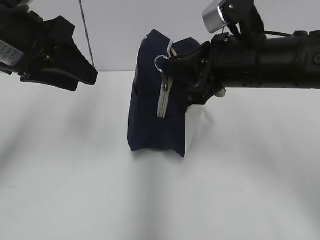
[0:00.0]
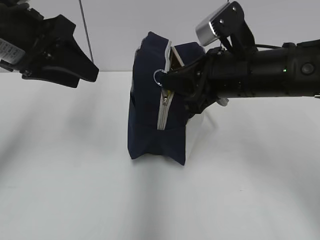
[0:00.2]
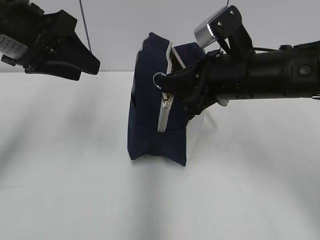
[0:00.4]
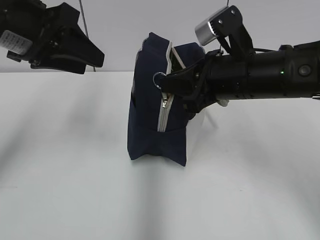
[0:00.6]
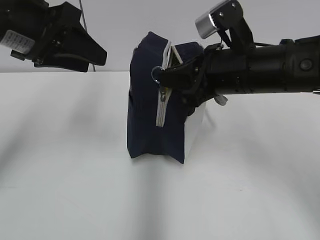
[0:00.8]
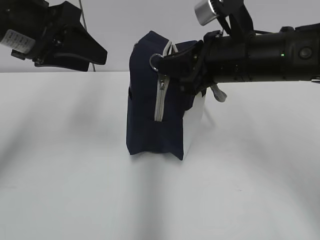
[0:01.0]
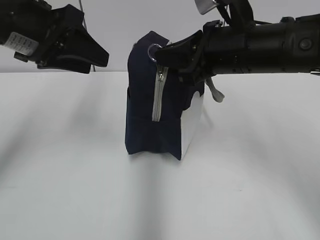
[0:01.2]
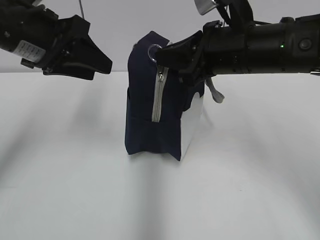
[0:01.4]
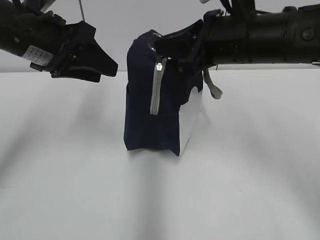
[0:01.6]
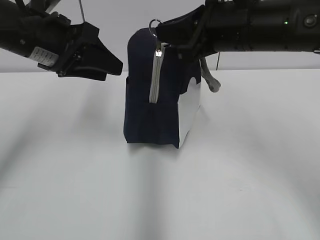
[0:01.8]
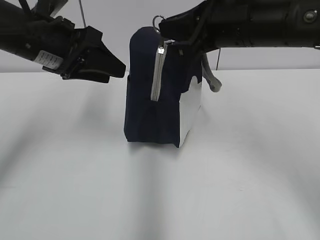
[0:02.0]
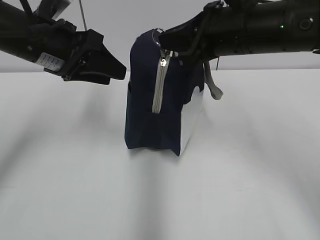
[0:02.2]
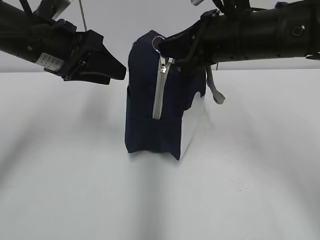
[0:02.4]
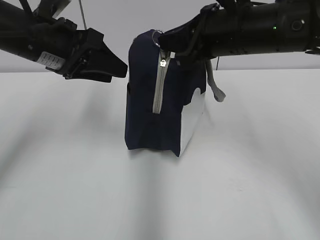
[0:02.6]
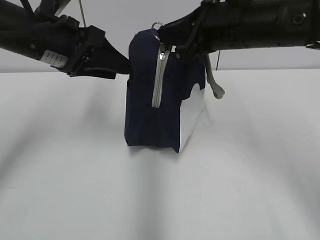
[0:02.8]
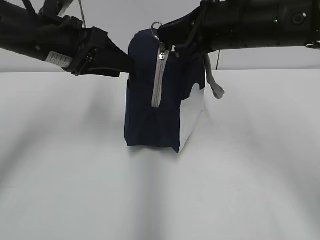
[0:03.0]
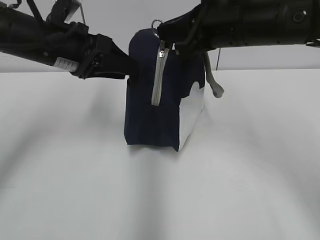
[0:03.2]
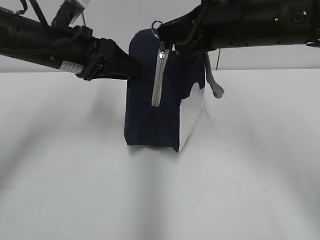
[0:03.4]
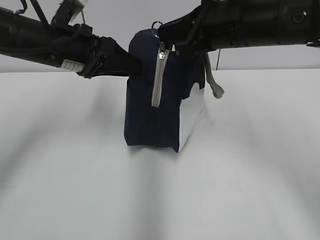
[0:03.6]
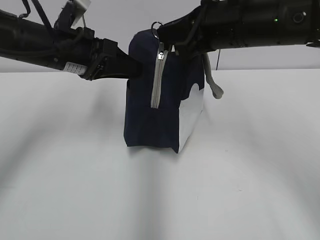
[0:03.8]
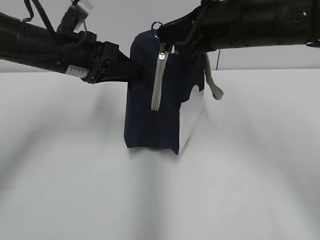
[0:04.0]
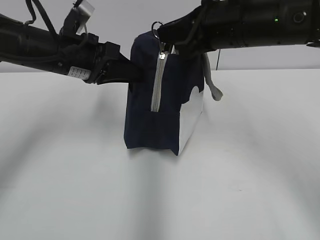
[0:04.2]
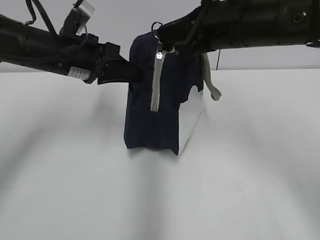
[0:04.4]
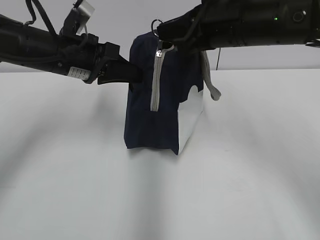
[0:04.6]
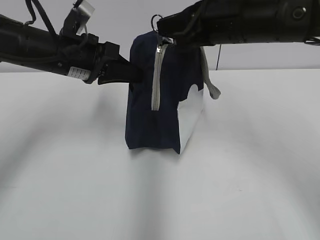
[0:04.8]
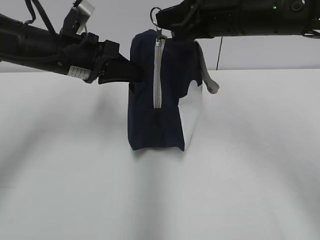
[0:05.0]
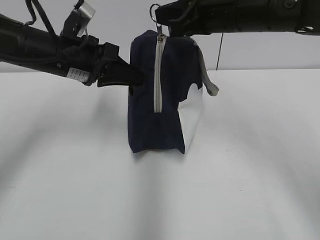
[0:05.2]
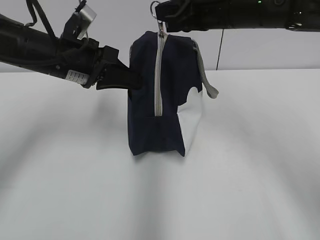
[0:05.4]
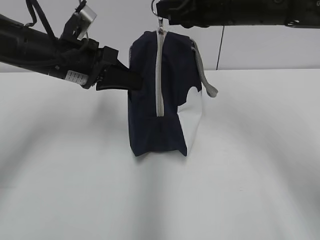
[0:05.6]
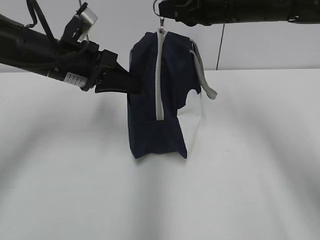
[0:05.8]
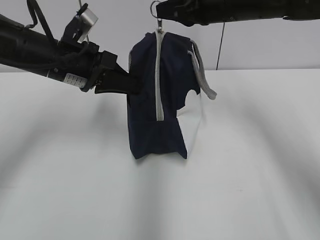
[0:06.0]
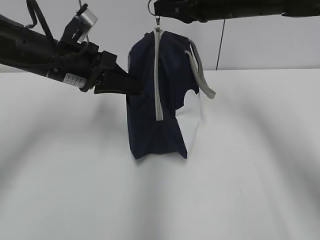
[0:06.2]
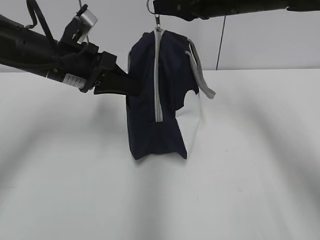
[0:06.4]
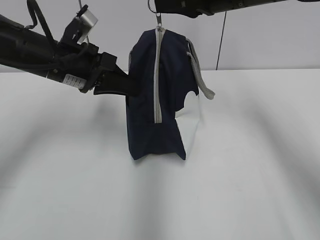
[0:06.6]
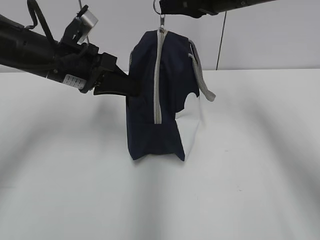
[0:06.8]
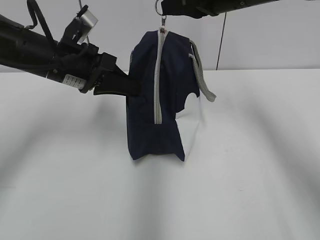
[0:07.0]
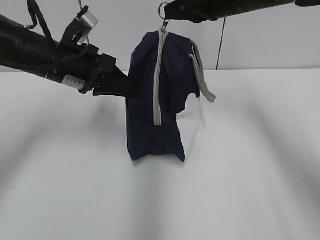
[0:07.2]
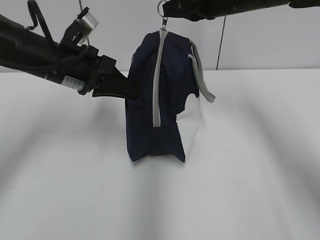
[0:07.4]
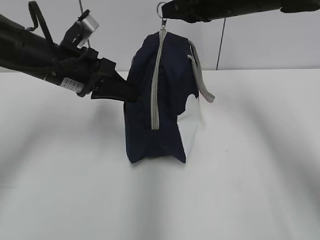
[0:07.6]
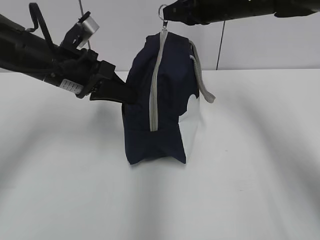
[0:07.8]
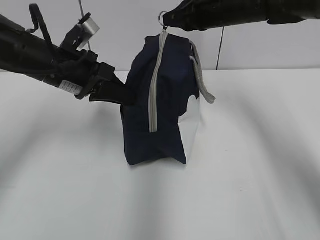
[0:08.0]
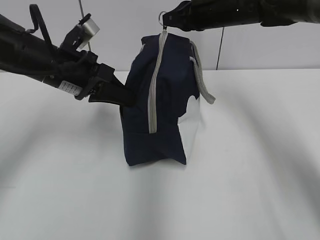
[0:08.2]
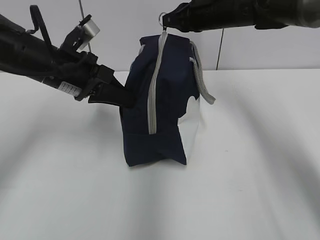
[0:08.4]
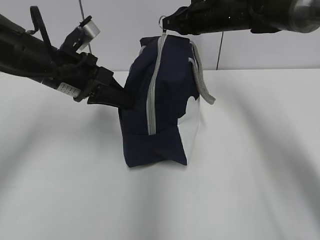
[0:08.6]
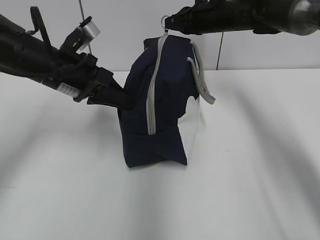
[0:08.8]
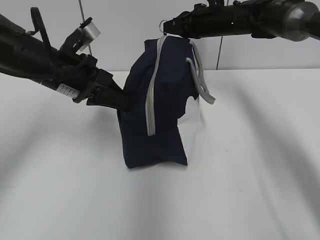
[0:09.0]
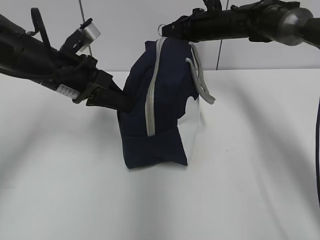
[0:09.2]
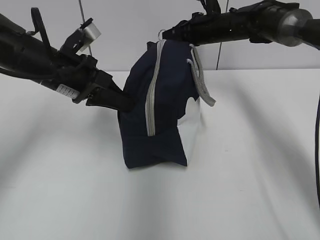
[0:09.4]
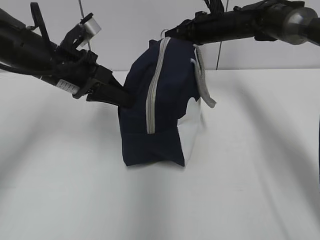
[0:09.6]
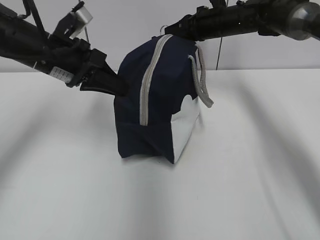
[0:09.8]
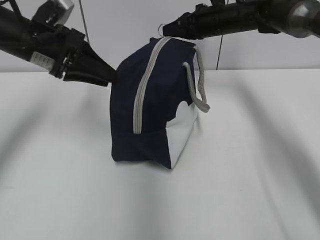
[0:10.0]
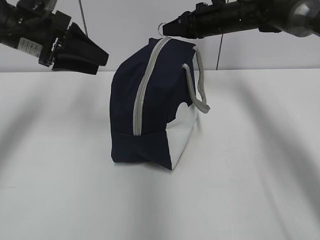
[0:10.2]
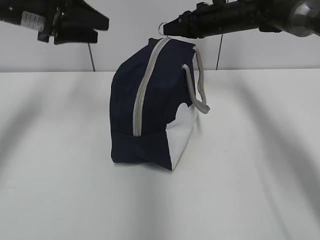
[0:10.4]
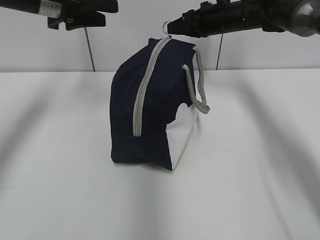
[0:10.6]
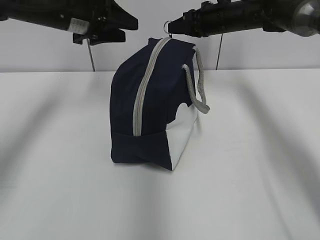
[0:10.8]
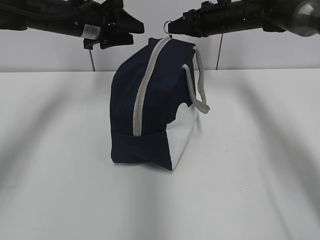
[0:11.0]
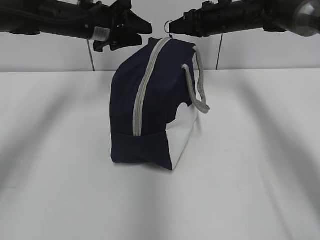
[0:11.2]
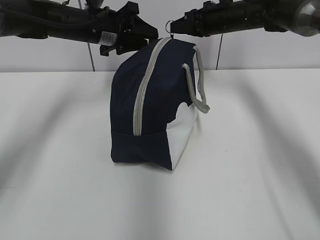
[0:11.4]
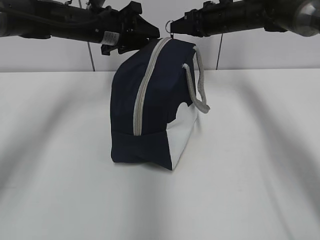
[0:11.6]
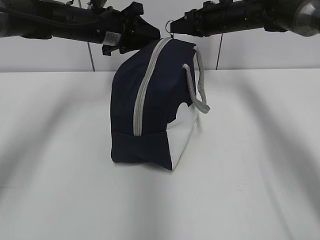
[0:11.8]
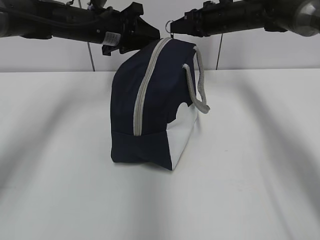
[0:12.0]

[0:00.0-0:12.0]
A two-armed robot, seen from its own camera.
0:00.0 to 0:01.6: The grippers move only a little.
0:01.6 to 0:03.0: The grippers make only small movements.
0:03.0 to 0:04.4: The left gripper closes.
0:04.4 to 0:06.0: The right gripper heads forward, covering about 10 cm.
0:06.0 to 0:07.6: The grippers stay close to where they were, moving slightly.
0:07.6 to 0:09.0: The right gripper goes about 10 cm forward and downward.
0:09.0 to 0:10.4: The left gripper is displaced upward and to the left by approximately 10 cm, and opens its fingers.
0:10.4 to 0:12.0: The left gripper moves to the right, forward and downward, roughly 15 cm.

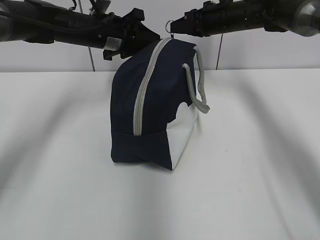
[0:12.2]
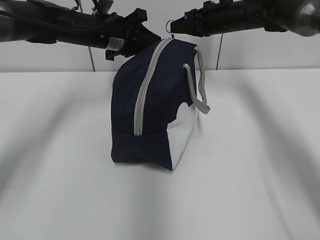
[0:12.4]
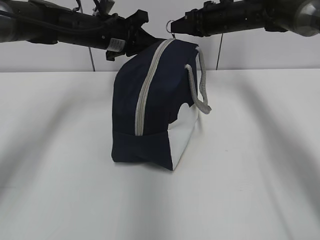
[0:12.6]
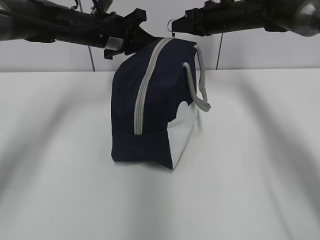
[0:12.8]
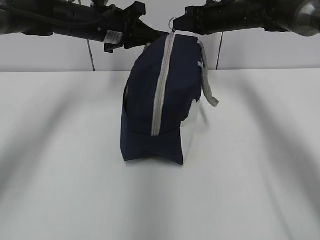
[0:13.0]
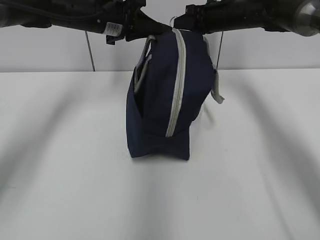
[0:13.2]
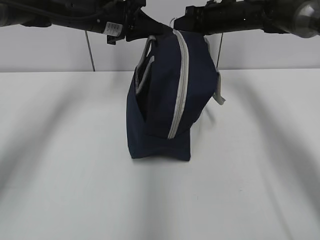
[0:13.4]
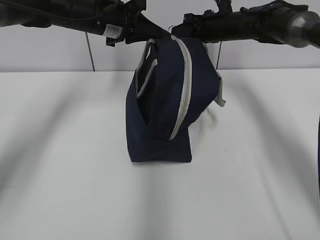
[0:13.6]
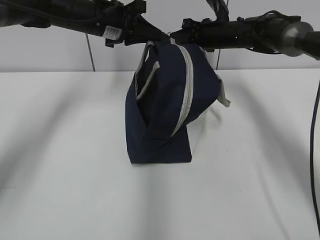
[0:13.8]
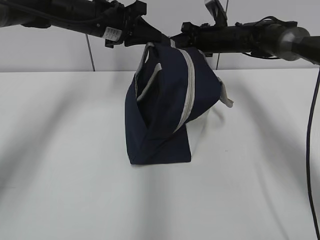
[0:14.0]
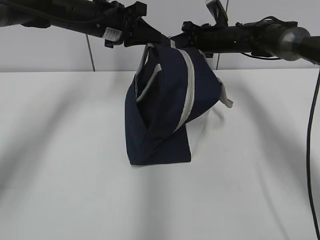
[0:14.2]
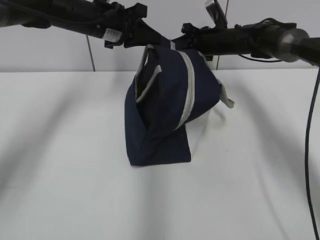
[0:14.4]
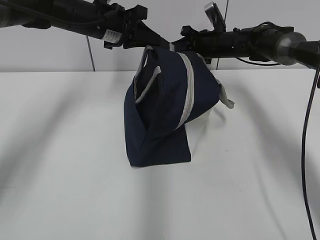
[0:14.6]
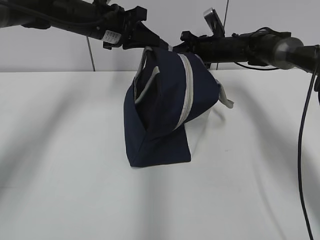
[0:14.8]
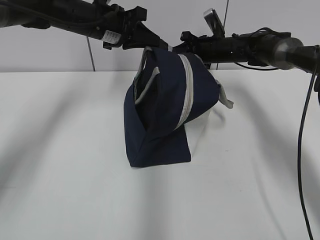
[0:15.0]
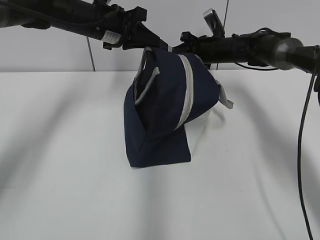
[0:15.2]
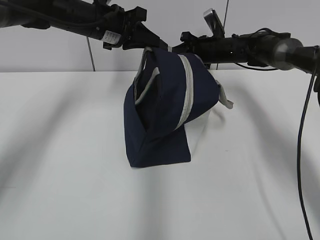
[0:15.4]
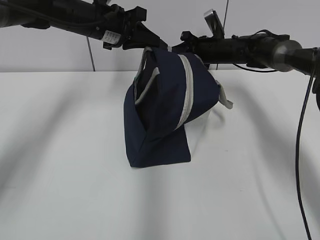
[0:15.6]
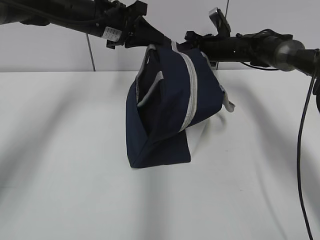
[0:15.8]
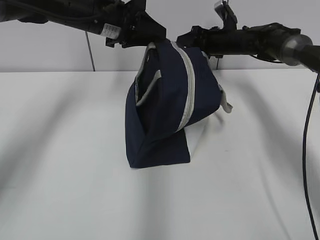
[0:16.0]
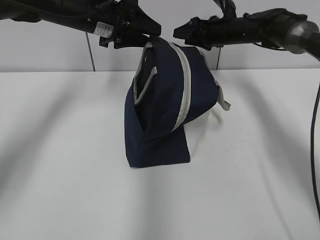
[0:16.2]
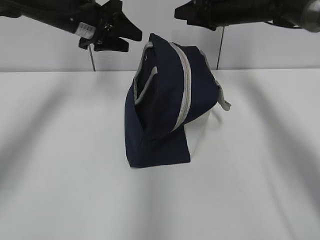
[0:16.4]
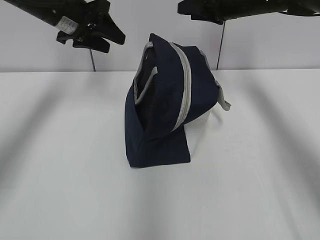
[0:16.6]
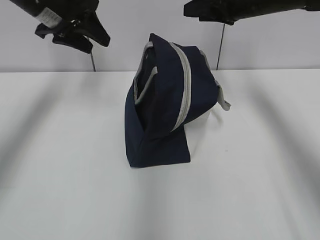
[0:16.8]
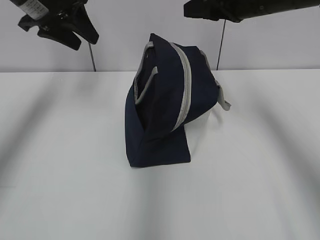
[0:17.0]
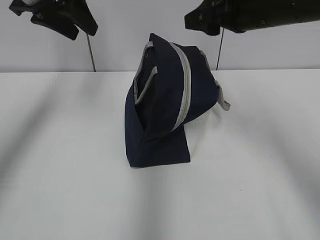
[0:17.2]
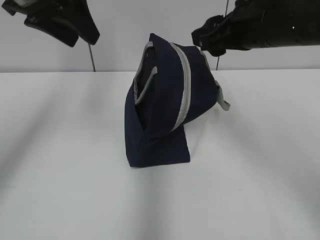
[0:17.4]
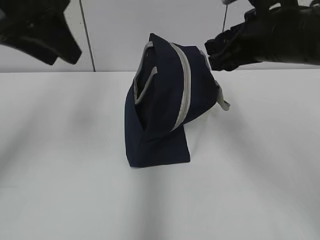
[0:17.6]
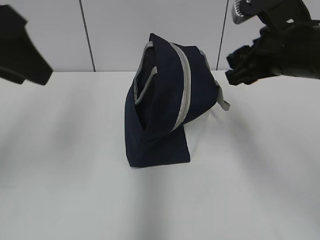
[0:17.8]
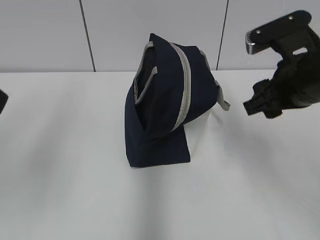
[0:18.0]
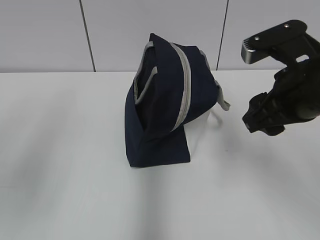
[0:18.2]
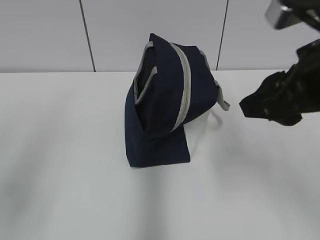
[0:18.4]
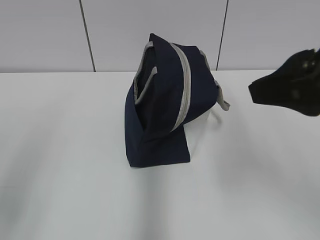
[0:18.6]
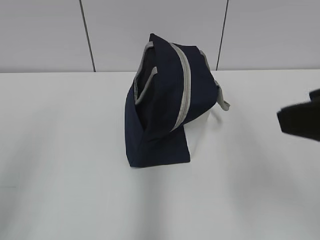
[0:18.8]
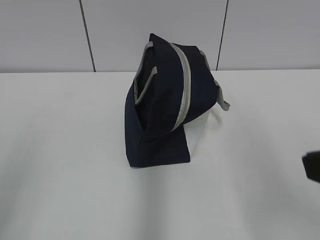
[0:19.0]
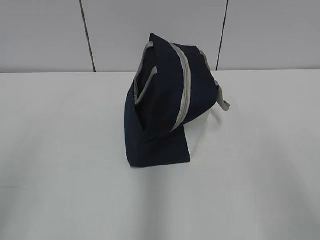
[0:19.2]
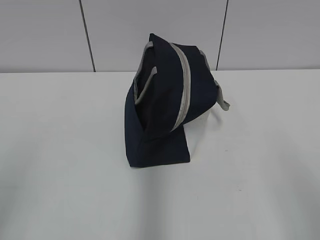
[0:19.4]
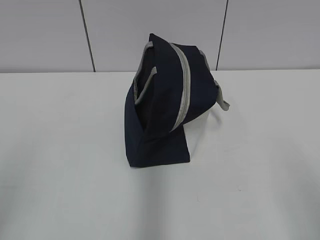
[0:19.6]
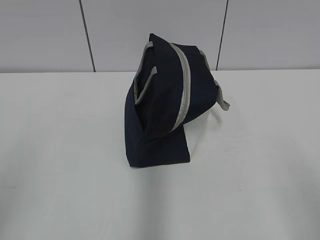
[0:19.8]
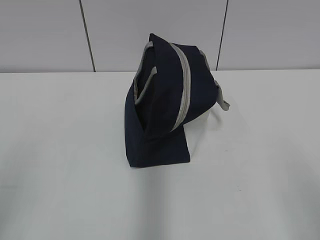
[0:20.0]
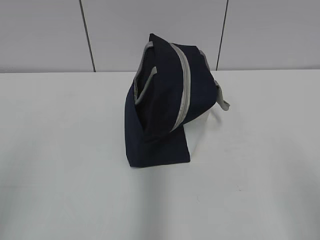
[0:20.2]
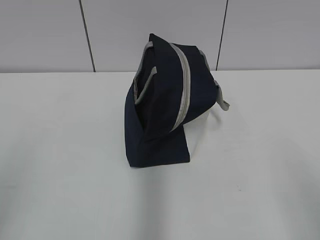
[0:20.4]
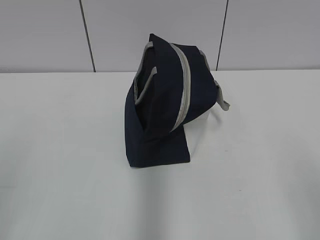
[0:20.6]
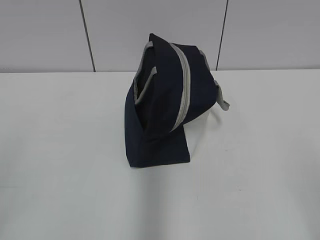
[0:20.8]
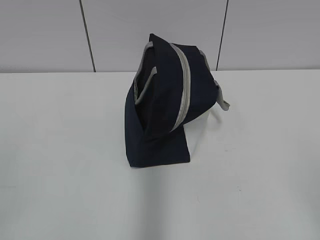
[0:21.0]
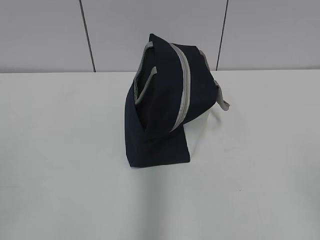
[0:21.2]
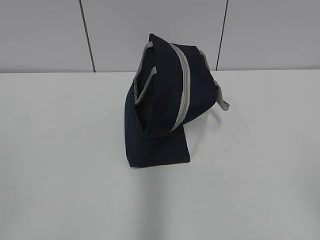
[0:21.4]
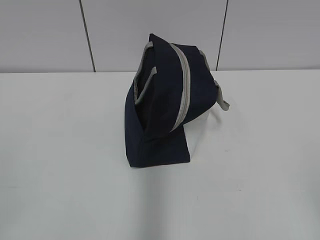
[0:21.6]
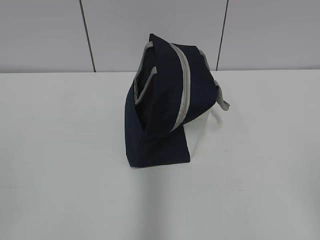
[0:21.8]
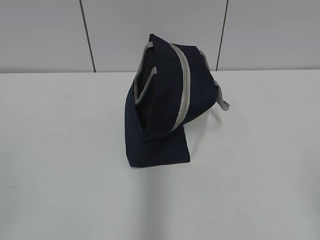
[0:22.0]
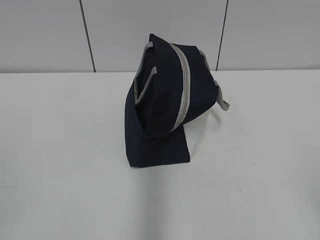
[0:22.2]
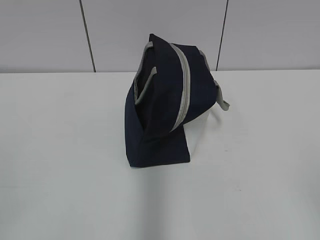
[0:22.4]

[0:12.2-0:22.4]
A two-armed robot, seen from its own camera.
0:12.2 to 0:13.6: The left gripper closes its fingers.
0:13.6 to 0:15.2: The right gripper goes roughly 5 cm downward.
0:15.2 to 0:16.6: The right gripper goes approximately 15 cm upward, and opens. Meanwhile the left gripper travels to the left by some 5 cm, and opens its fingers.
0:16.6 to 0:18.0: The grippers both shift backward by some 25 cm.
0:18.0 to 0:19.4: The left gripper moves backward, downward and to the left, roughly 15 cm, while the right gripper is displaced backward by roughly 25 cm.
